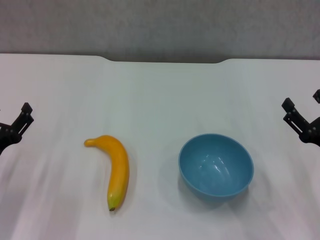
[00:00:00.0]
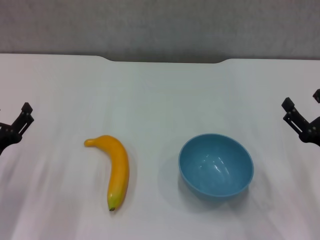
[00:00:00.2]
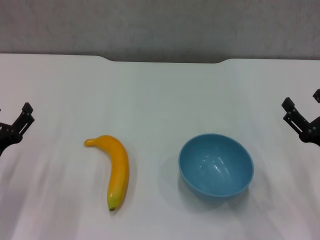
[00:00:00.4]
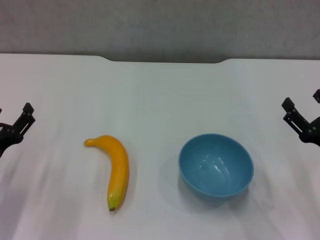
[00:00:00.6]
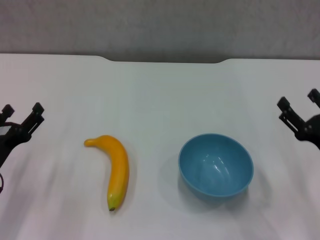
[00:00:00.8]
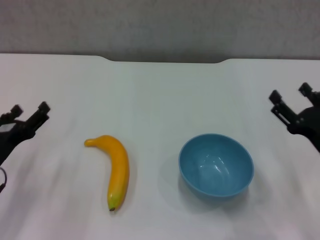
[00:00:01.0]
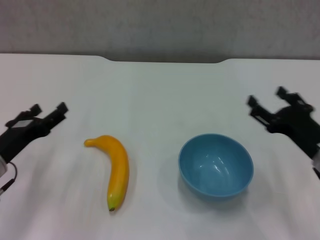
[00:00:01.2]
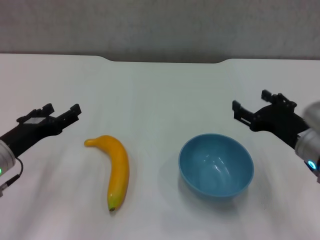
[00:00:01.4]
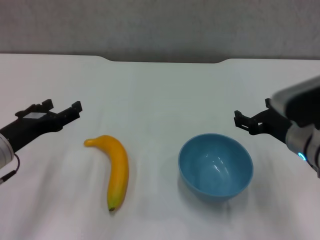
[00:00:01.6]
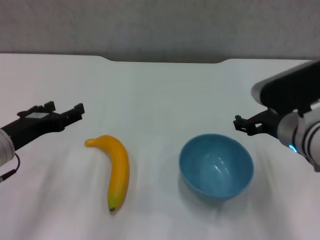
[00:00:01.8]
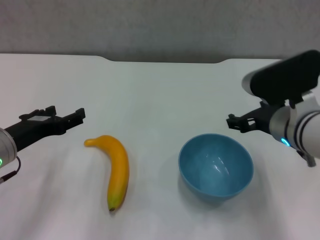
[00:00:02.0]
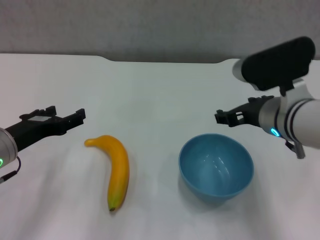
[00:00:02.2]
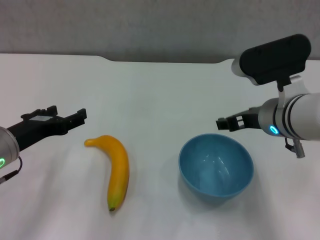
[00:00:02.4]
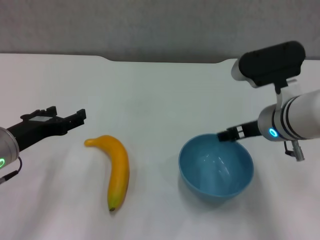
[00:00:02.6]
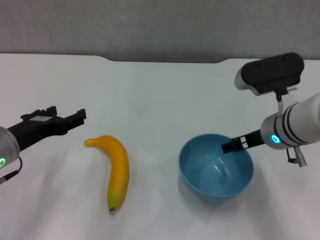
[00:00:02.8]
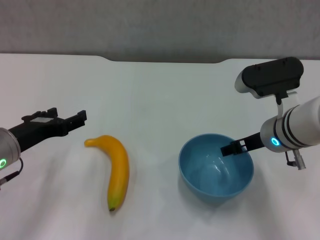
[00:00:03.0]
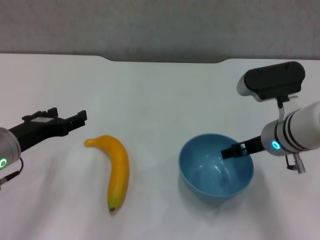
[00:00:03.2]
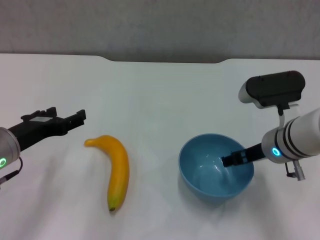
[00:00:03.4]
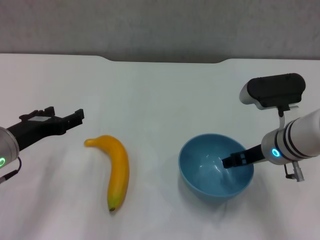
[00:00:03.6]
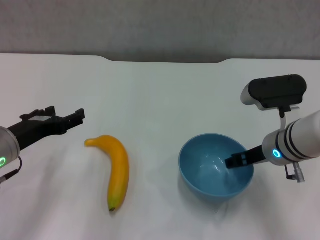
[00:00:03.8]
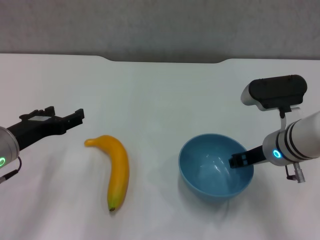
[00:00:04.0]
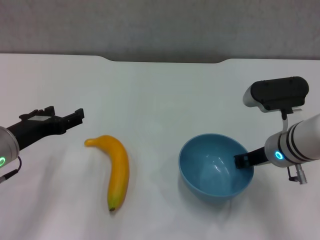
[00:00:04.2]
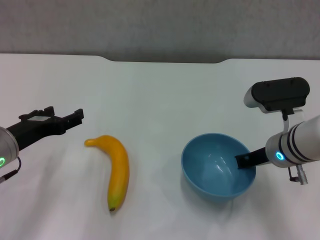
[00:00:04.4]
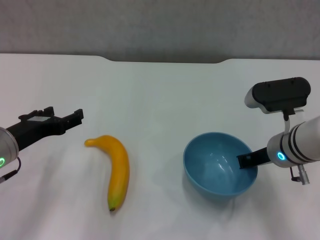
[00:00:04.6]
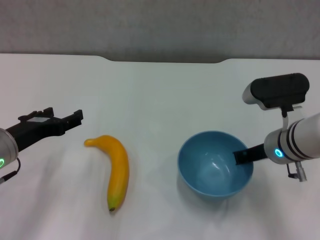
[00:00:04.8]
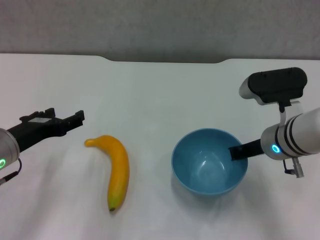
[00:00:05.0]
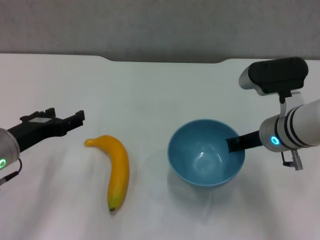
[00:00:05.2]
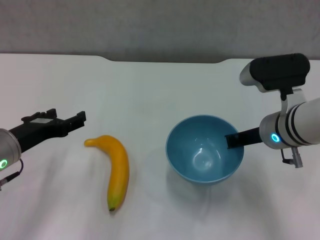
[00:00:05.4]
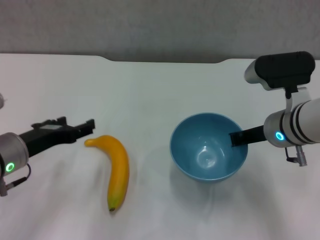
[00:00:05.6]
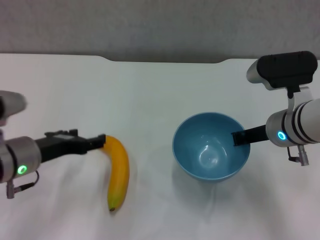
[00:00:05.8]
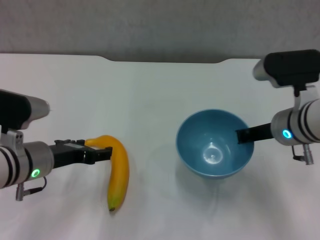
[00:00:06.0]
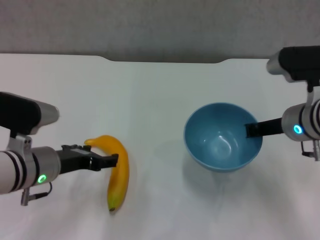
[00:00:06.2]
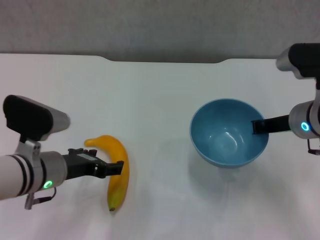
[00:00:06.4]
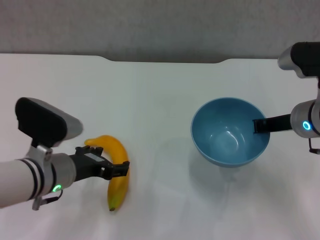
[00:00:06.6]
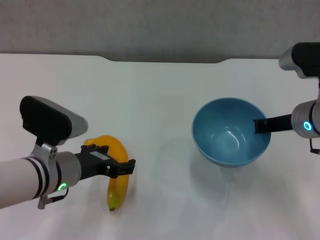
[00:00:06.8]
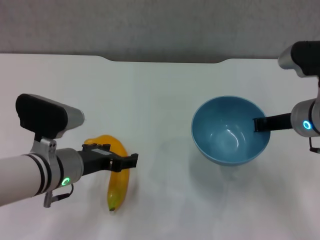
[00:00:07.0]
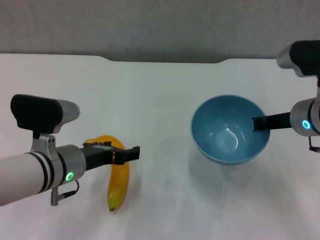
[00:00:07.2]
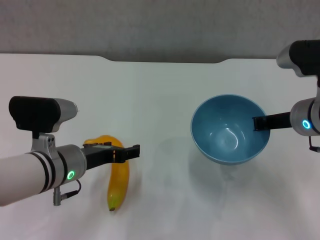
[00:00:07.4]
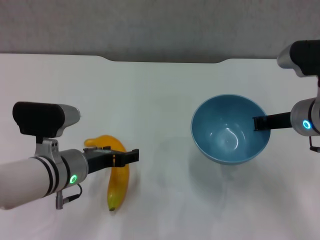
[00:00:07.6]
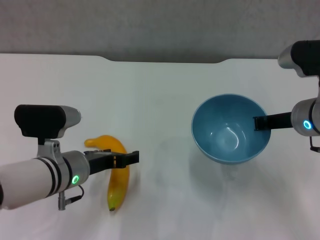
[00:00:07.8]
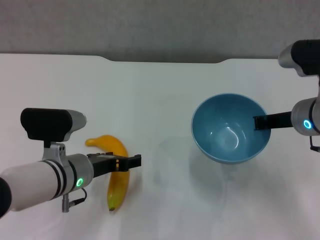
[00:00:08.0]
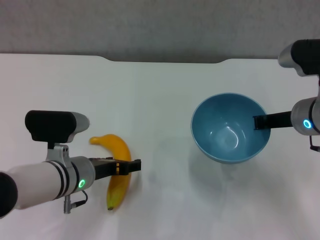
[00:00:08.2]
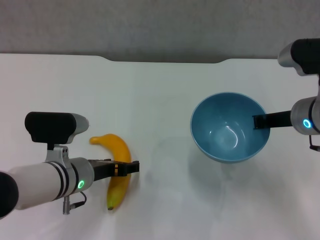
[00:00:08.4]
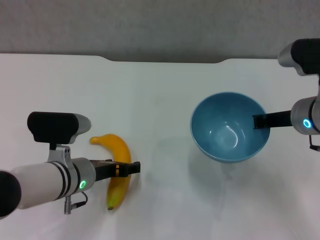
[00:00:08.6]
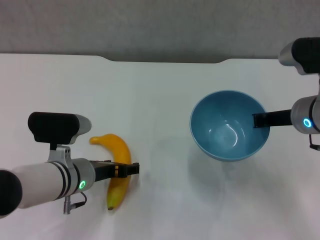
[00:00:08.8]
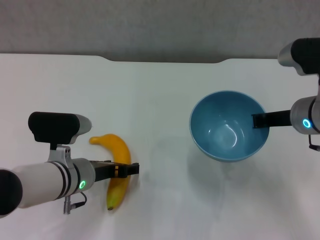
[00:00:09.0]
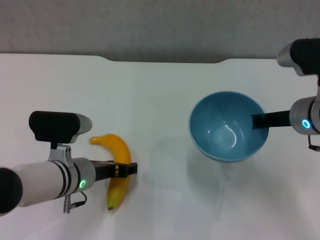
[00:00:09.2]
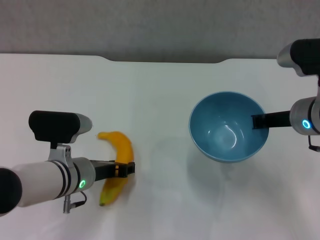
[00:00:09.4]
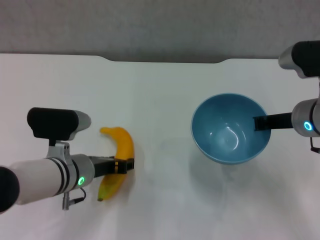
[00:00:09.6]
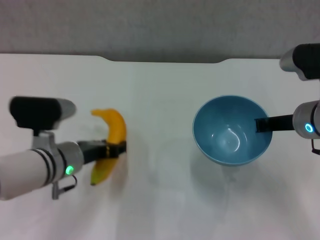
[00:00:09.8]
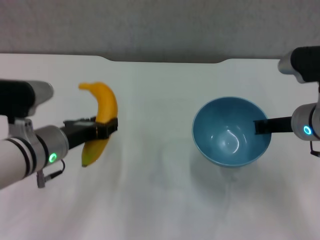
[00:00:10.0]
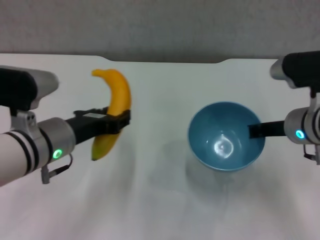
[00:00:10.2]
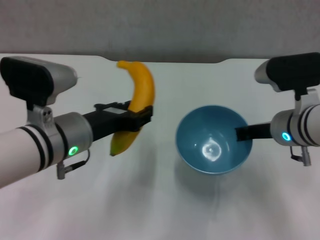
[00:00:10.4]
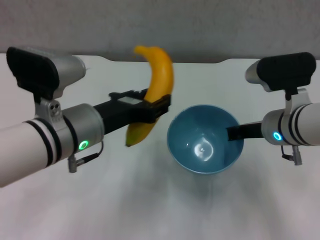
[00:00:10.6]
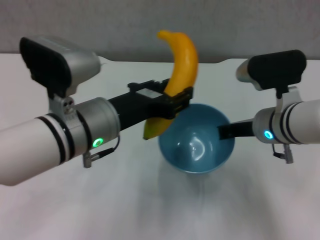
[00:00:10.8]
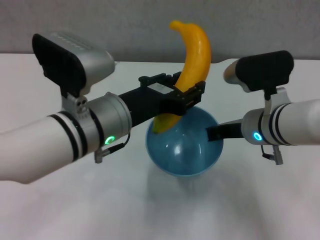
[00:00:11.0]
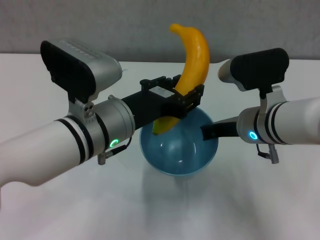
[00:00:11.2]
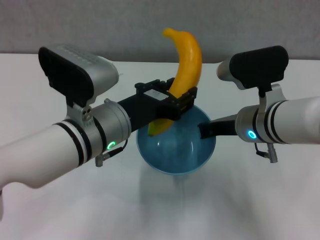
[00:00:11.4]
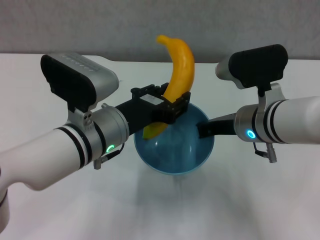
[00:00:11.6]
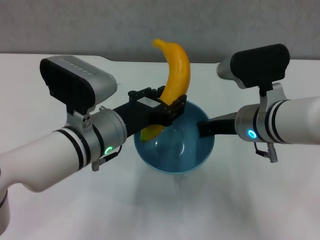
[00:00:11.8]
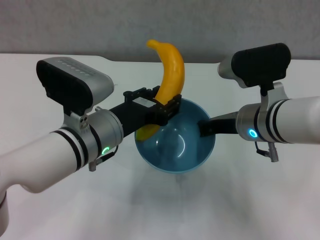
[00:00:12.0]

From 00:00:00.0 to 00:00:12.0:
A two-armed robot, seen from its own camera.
Step, from 00:00:00.0 to 00:00:04.6: Grasp the blue bowl with right gripper.
Step, from 00:00:04.8 to 00:00:06.0: Lift the blue bowl with right gripper.
Step, from 00:00:06.4 to 00:00:09.4: Grasp the banana with left gripper.
From 00:00:00.0 to 00:00:01.6: The left gripper moves upward, approximately 5 cm. Meanwhile the right gripper goes some 10 cm to the left, upward and forward.
From 00:00:01.6 to 00:00:03.0: The right gripper changes place by some 5 cm.
From 00:00:03.0 to 00:00:04.4: The right gripper closes its fingers.
From 00:00:06.0 to 00:00:07.6: The left gripper is displaced to the right by roughly 5 cm.
From 00:00:07.6 to 00:00:09.0: The grippers stay close to where they were, moving slightly.
From 00:00:09.0 to 00:00:10.4: The left gripper travels upward by approximately 10 cm, and closes its fingers.
From 00:00:10.4 to 00:00:12.0: The right gripper is displaced to the left by approximately 5 cm.

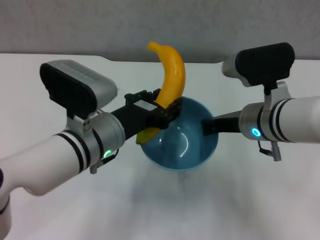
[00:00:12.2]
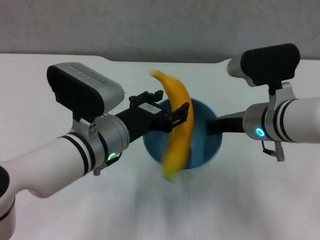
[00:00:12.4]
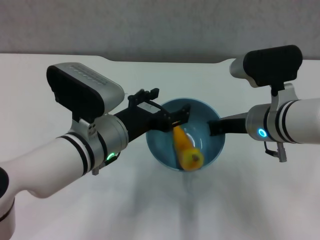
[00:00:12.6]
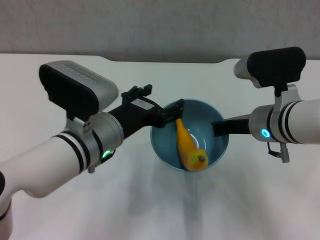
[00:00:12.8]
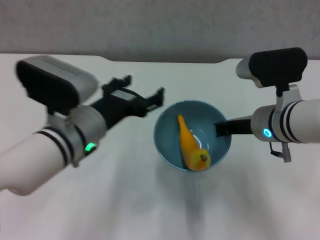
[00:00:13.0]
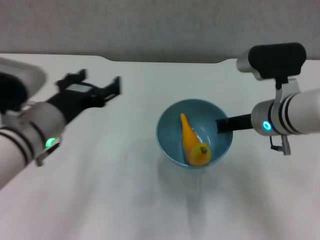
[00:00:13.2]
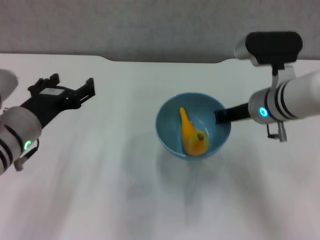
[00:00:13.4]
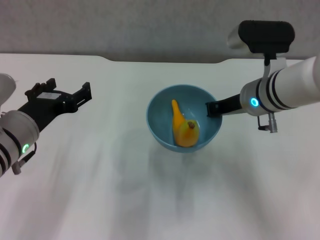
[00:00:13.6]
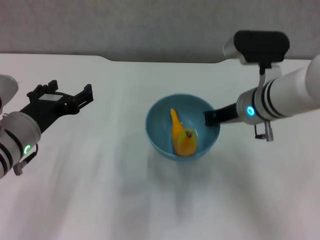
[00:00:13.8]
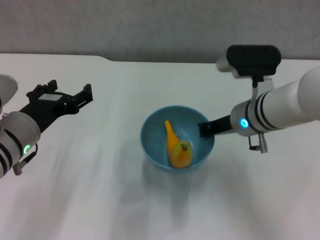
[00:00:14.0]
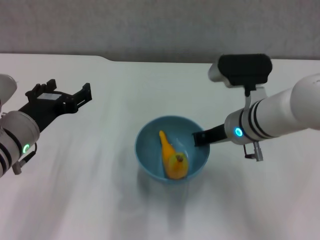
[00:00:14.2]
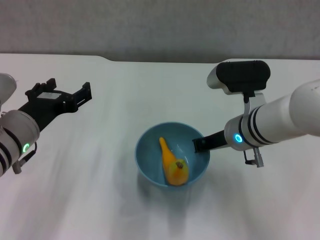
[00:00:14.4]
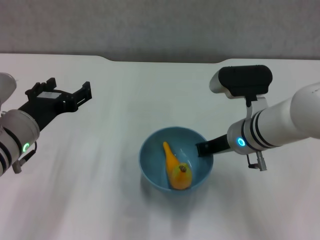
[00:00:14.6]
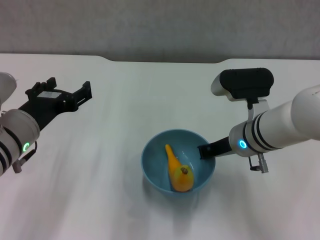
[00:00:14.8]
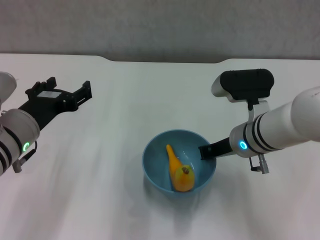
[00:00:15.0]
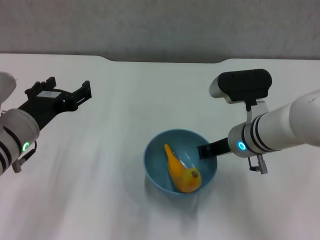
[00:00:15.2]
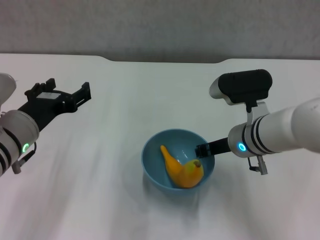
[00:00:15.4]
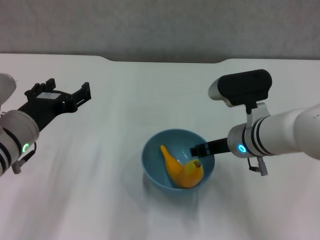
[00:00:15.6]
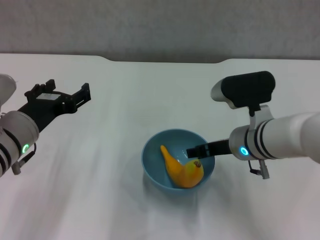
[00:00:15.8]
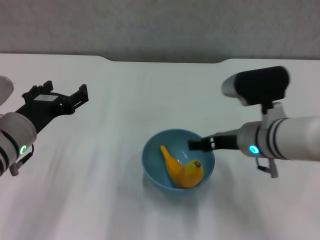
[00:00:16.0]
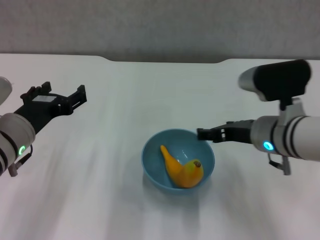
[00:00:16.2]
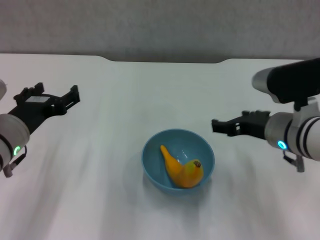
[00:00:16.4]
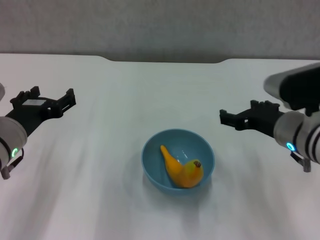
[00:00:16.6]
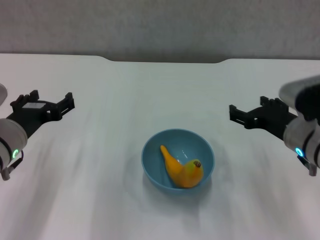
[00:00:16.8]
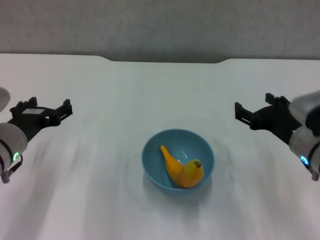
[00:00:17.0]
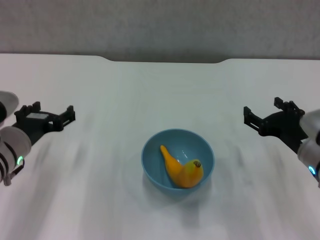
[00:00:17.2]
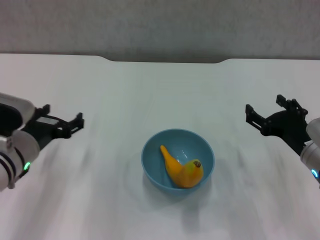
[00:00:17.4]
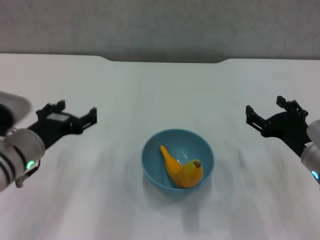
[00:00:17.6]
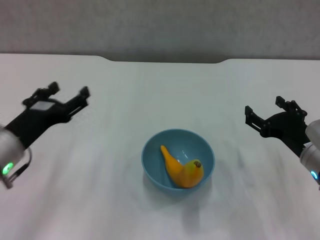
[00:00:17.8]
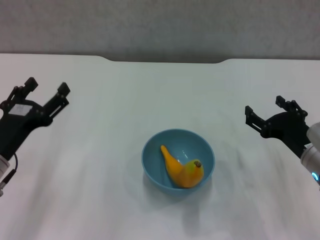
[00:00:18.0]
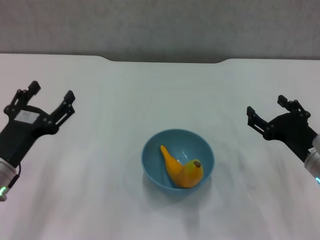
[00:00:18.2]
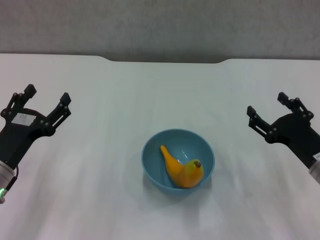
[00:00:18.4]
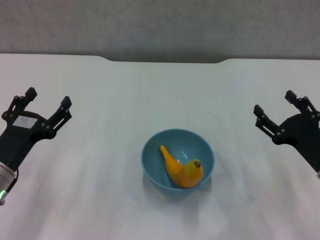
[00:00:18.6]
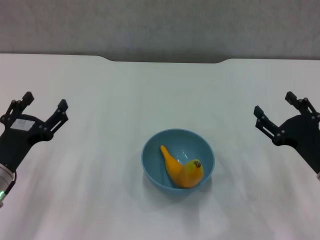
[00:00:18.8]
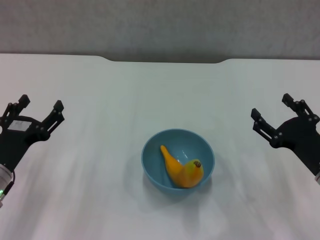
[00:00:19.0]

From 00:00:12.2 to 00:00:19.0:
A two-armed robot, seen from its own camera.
Step, from 00:00:12.8 to 00:00:16.0: Place the bowl on the table with right gripper.
From 00:00:12.2 to 00:00:13.6: The right gripper travels forward by about 5 cm; the left gripper goes approximately 10 cm to the left, and opens up.
From 00:00:13.6 to 00:00:15.0: The right gripper moves downward, roughly 5 cm.
From 00:00:15.0 to 00:00:16.2: The right gripper changes place by about 5 cm, and opens.
From 00:00:16.2 to 00:00:17.6: The right gripper moves to the right and downward, some 10 cm.
From 00:00:17.6 to 00:00:19.0: The left gripper changes place by roughly 5 cm.
